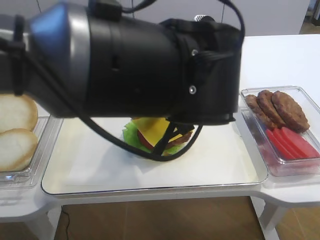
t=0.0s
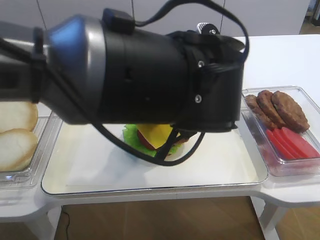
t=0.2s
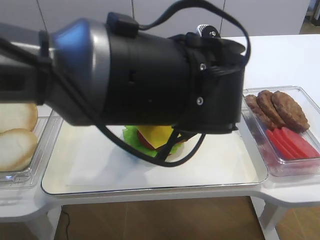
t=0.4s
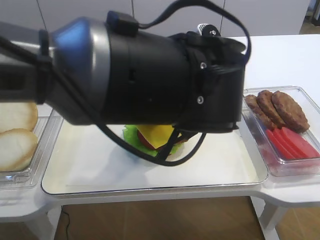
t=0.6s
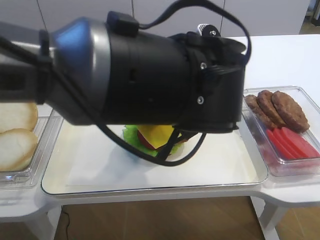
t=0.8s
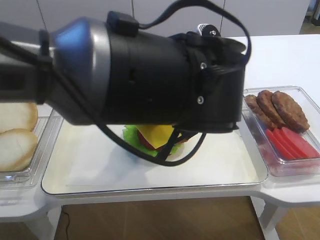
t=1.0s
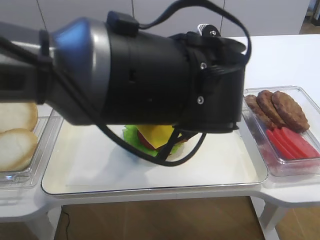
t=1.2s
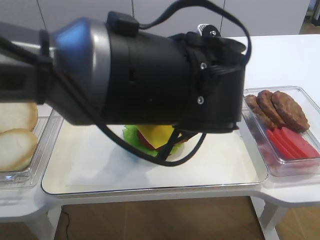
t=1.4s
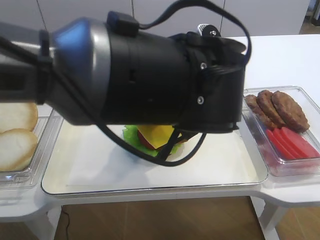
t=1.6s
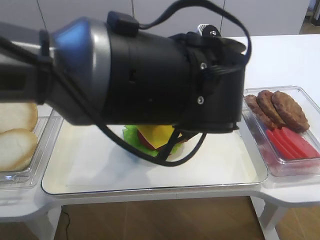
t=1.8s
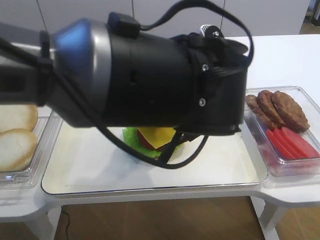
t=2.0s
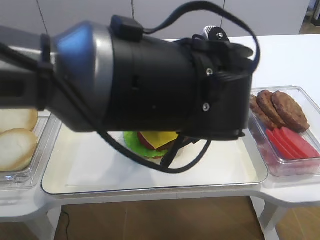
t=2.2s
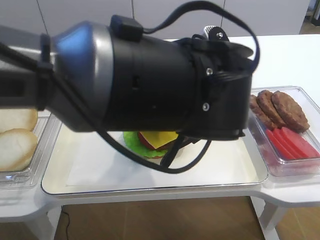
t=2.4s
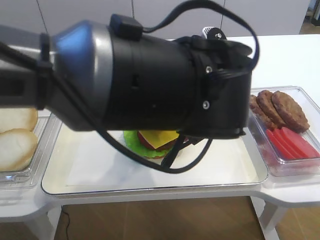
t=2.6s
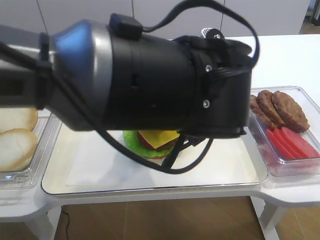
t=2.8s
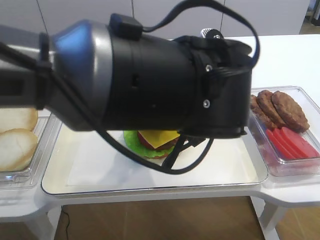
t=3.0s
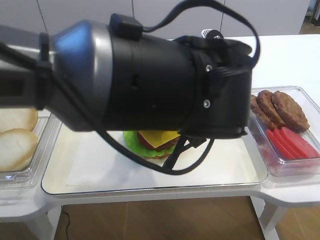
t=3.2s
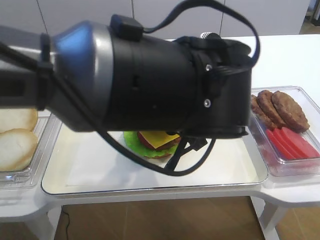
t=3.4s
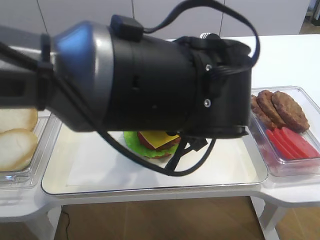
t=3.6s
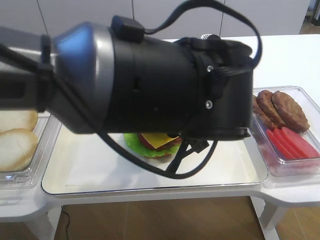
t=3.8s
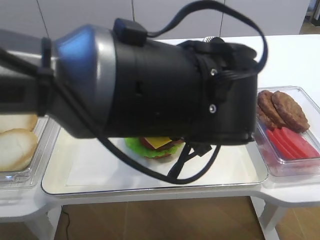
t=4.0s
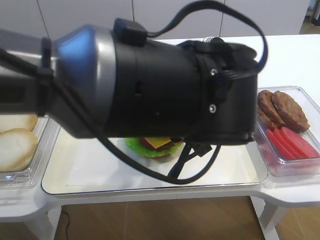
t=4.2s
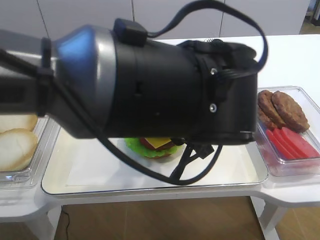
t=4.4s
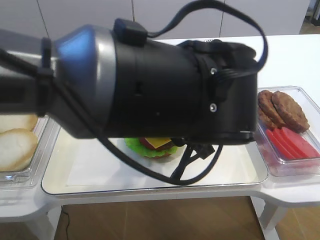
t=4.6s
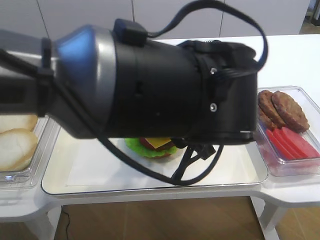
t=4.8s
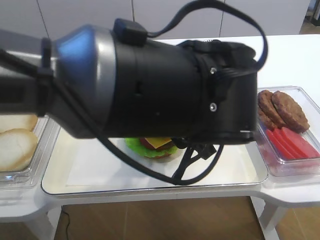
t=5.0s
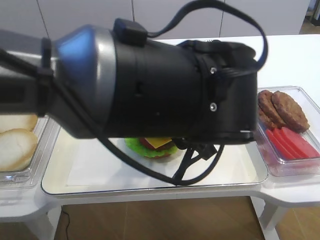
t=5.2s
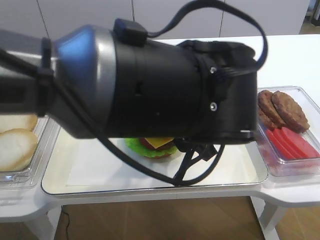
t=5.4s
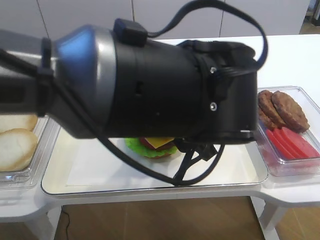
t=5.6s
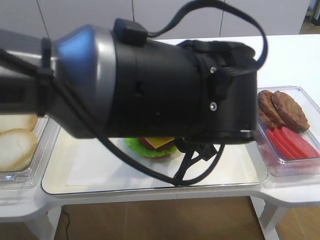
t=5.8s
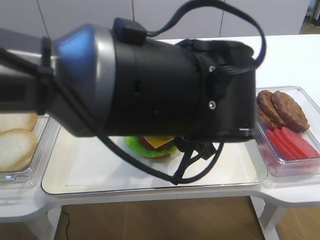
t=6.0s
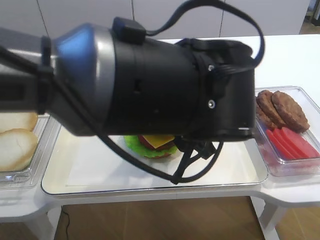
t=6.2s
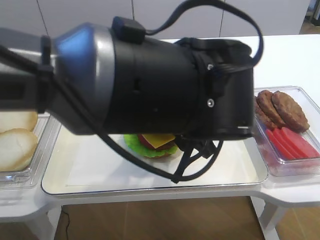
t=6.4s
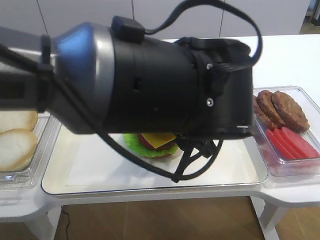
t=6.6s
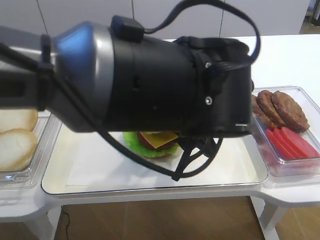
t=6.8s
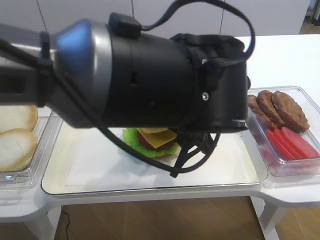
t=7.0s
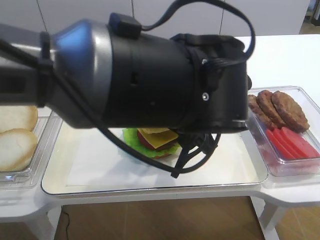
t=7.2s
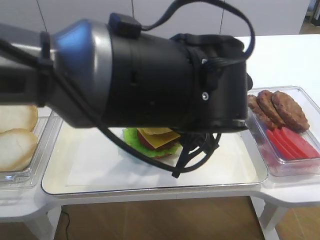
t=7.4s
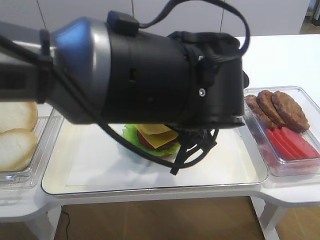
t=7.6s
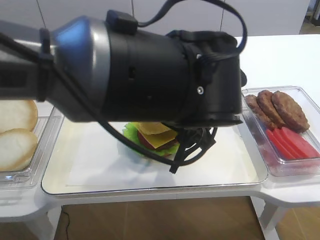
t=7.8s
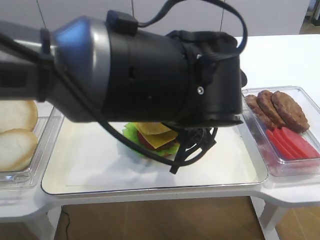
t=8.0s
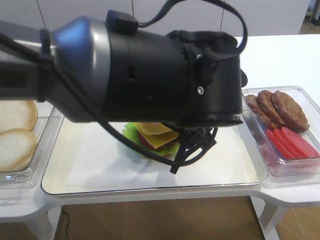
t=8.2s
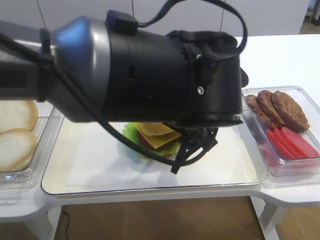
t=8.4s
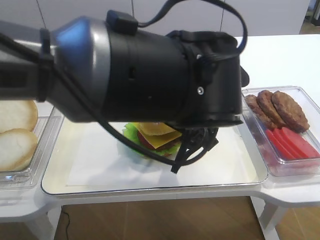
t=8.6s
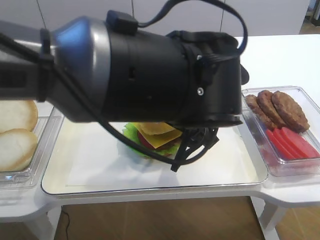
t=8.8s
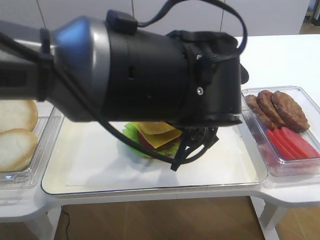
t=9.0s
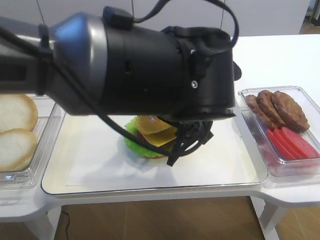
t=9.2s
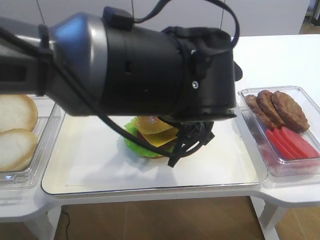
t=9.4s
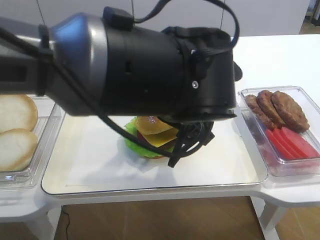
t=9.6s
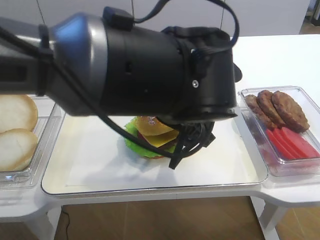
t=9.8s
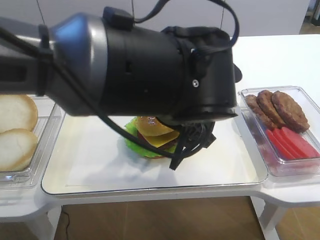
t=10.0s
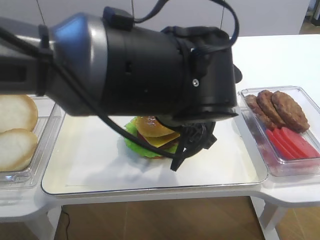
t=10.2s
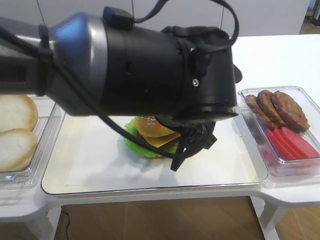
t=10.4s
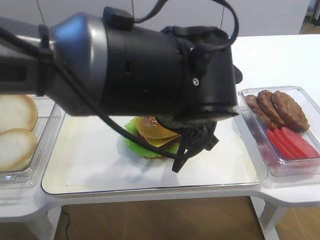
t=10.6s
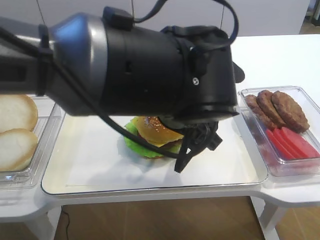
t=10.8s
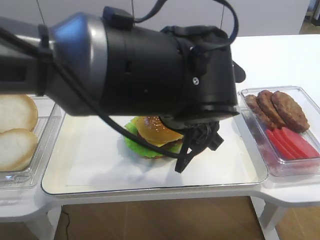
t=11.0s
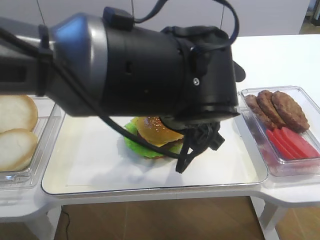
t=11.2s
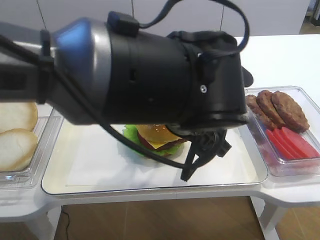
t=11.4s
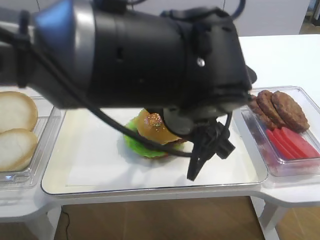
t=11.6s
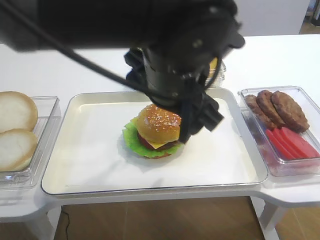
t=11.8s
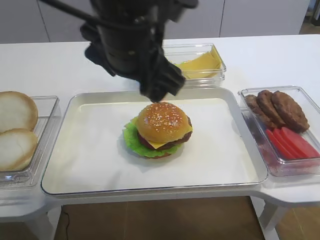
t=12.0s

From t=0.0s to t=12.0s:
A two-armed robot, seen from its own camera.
Step, from t=0.0s to t=11.2s: Place the hamburger lid on the cheese slice with the left gripper.
From t=0.0s to t=1.6s: There are only small adjustments of the grippers.
From t=1.6s to t=3.0s: Both grippers stay put.
From t=3.0s to t=4.4s: Both grippers stay put.
From t=4.4s to t=6.0s: Both grippers stay put.
From t=6.0s to t=7.6s: The right gripper closes up.
From t=7.6s to t=9.0s: Neither gripper changes place.
From t=9.0s to t=10.4s: Neither gripper changes place.
From t=10.4s to t=12.0s: The left gripper heads upward, covering about 5 cm.

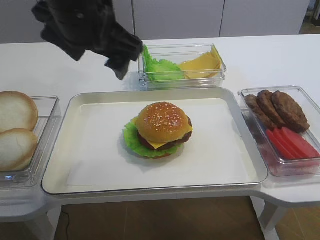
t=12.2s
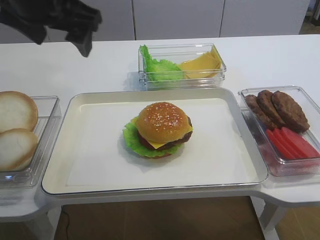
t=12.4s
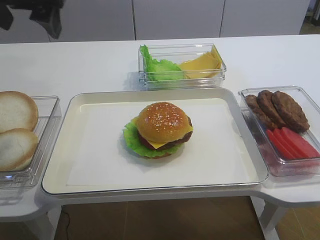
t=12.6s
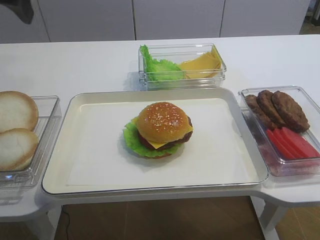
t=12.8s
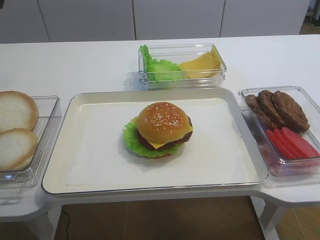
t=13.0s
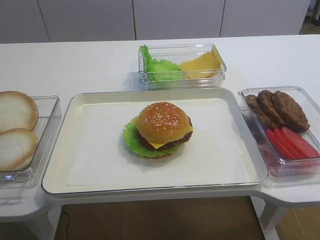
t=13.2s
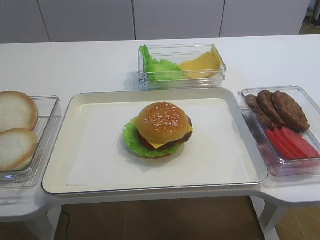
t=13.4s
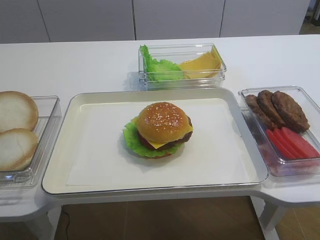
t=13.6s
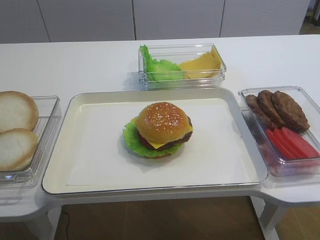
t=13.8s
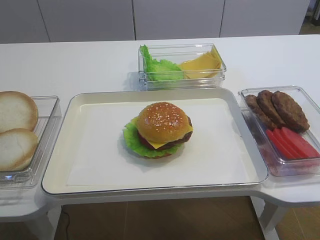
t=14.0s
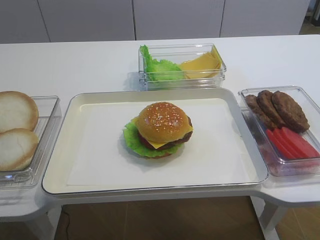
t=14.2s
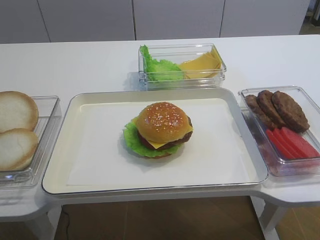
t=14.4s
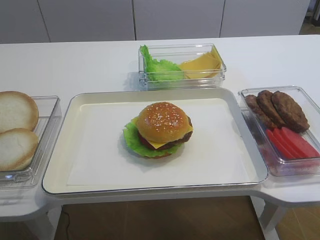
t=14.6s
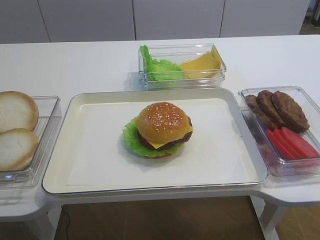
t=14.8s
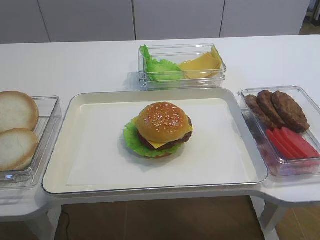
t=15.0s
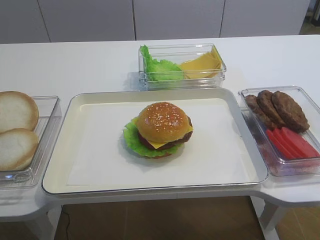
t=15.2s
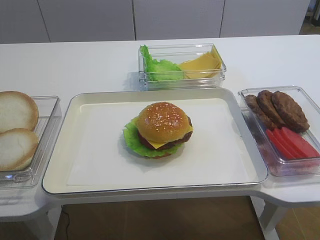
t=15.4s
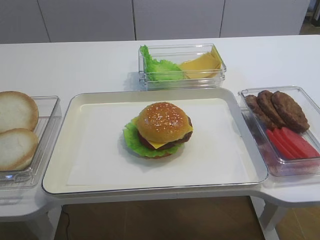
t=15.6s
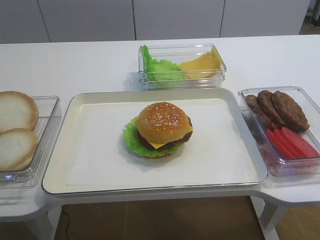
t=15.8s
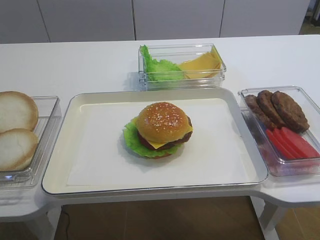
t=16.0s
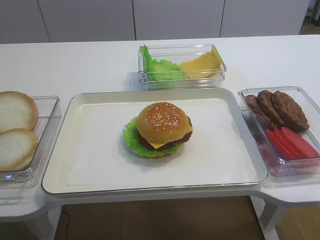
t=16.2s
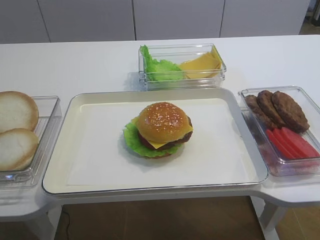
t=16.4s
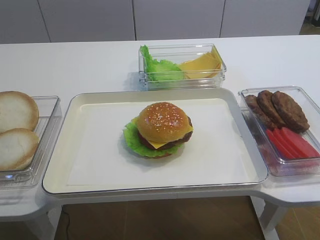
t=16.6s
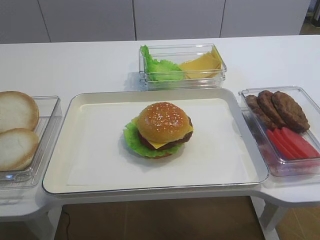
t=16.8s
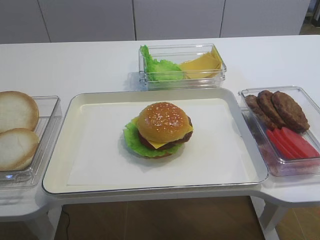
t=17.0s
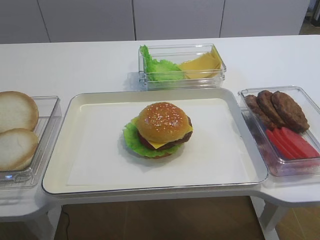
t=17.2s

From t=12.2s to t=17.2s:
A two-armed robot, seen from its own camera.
From t=12.2s to t=13.8s: The left gripper shifts roughly 25 cm to the left and backward.
